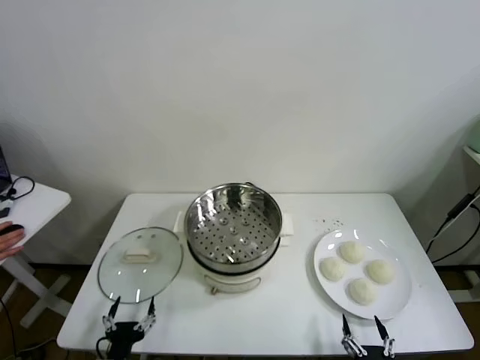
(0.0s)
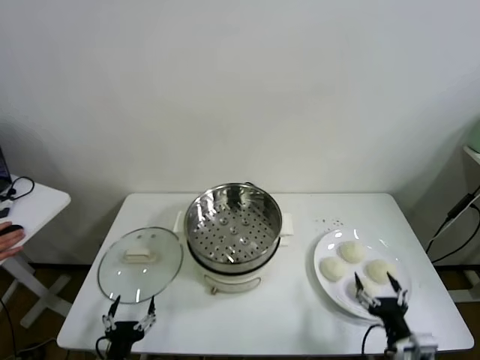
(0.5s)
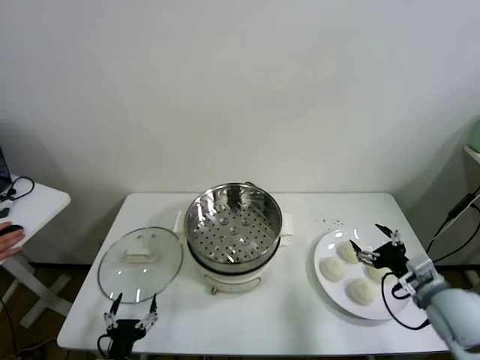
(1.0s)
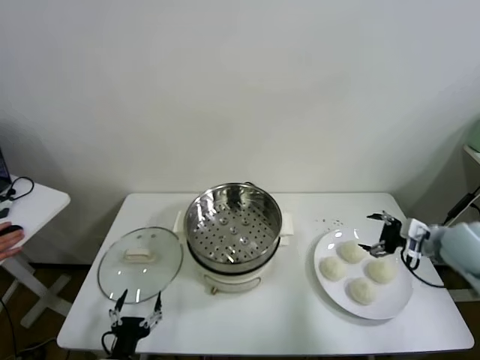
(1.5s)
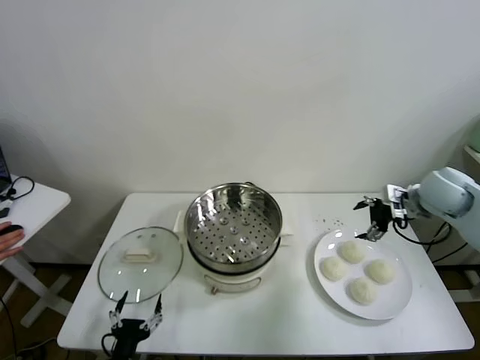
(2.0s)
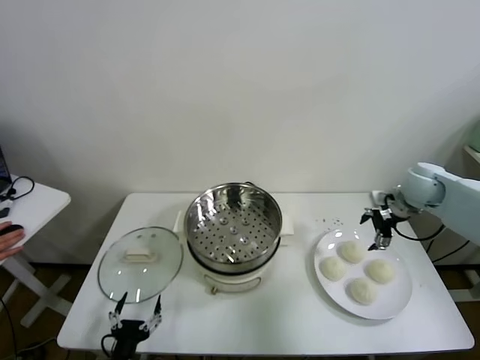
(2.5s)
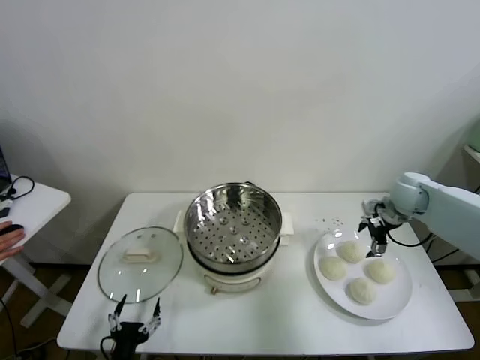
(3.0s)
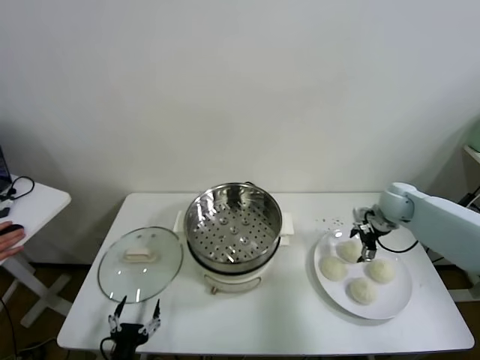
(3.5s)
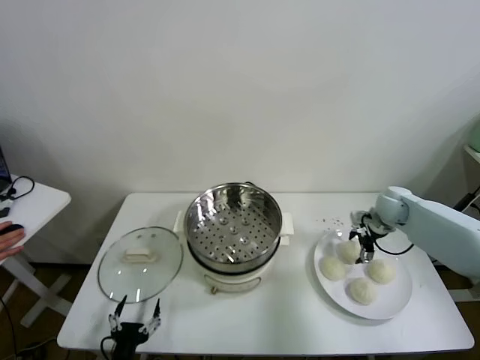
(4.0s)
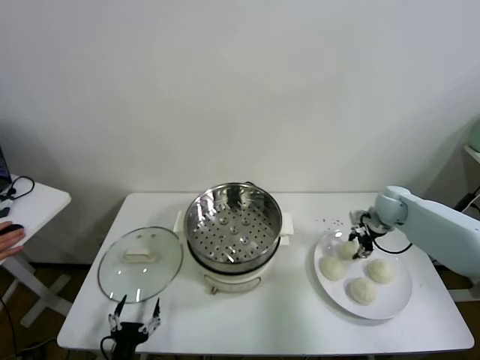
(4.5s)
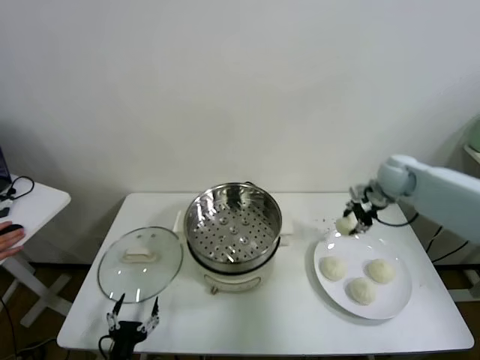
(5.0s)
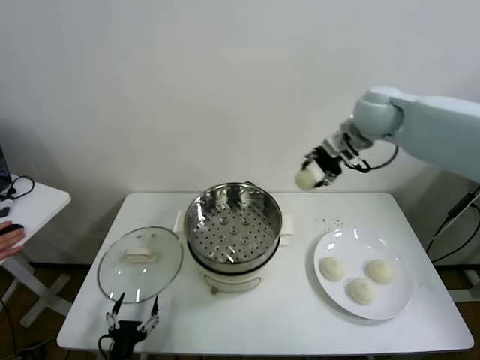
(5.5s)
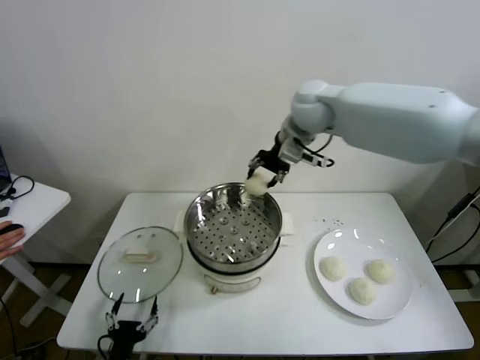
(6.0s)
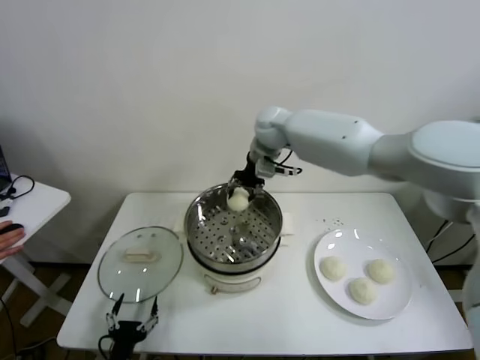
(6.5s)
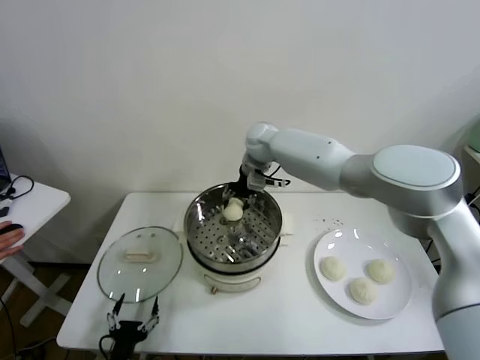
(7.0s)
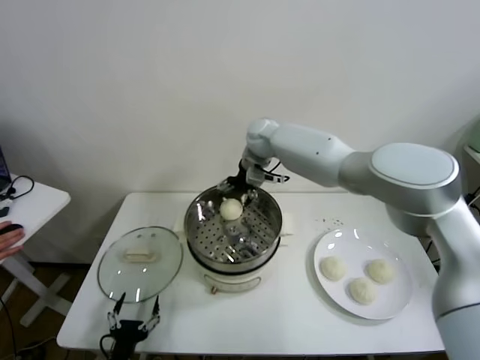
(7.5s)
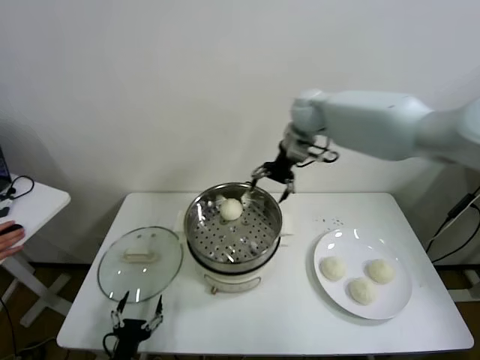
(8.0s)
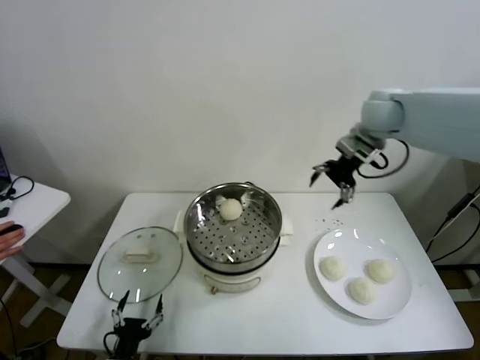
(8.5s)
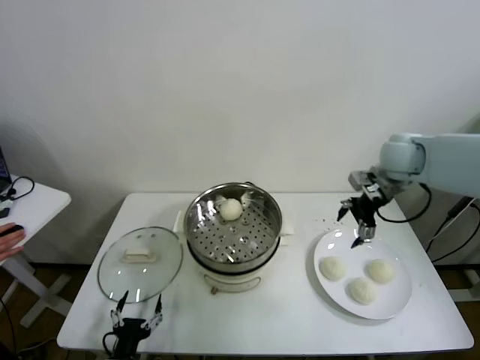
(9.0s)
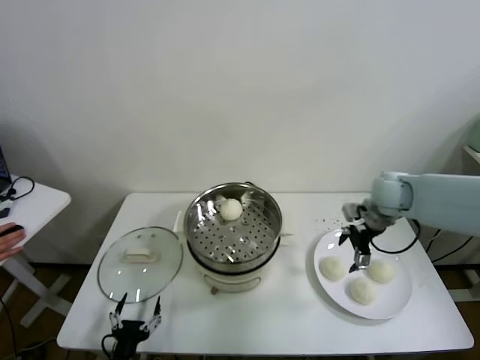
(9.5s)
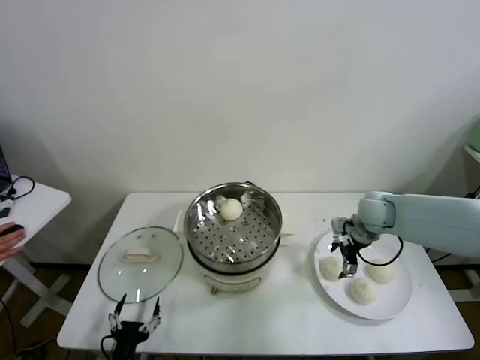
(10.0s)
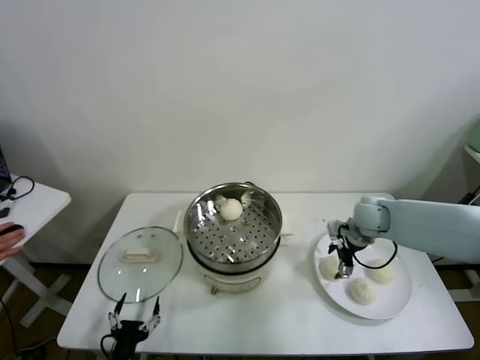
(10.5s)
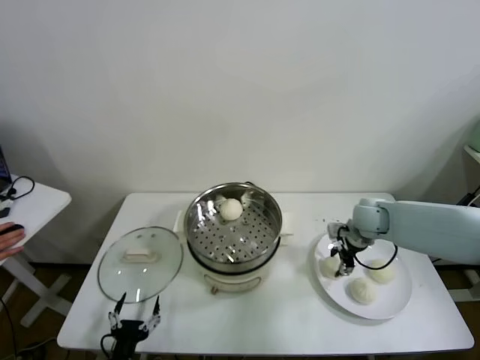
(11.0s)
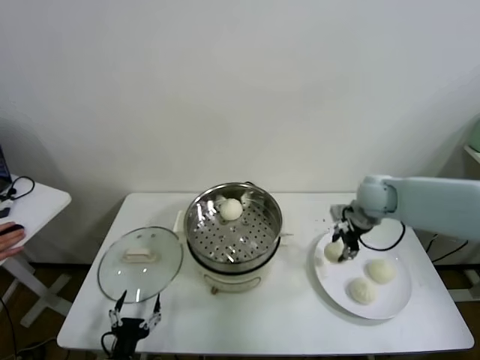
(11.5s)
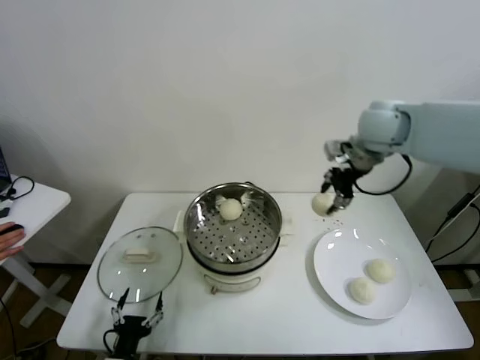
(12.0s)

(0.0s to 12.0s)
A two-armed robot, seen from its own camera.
Task of the whole recording: take steamed baozi put them in steamer.
Step, 0.0s - 4.0s: Grasp the baozi in the plate with right gripper.
Step, 4.5s - 7.0s: Place the baozi on the steamer with right gripper.
Step, 7.5s - 10.5s: Grasp the baozi in the plate with right gripper.
2.0s - 4.0s: The right gripper moves downward and forward, approximately 15 cm.
4.0s - 6.0s: The right gripper heads to the left and upward, covering some 35 cm, and closes its fingers.
6.0s - 8.0s: The right gripper goes roughly 5 cm to the right, and opens.
8.0s - 10.0s: The right gripper moves downward, to the right and backward, some 30 cm.
10.0s - 12.0s: The right gripper is displaced upward by some 25 cm, and closes up.

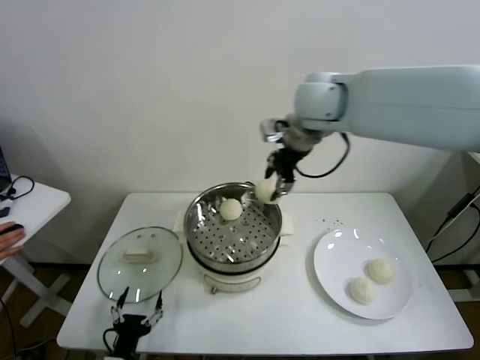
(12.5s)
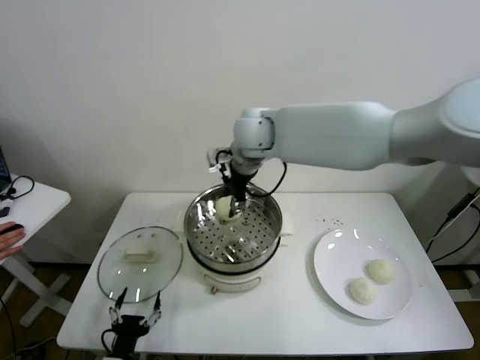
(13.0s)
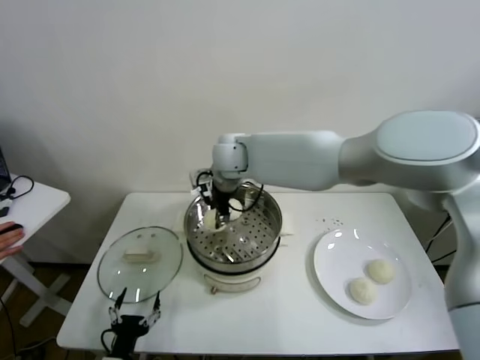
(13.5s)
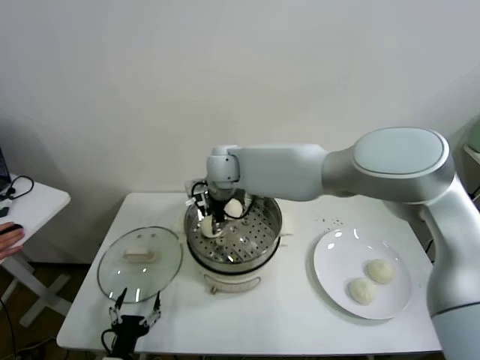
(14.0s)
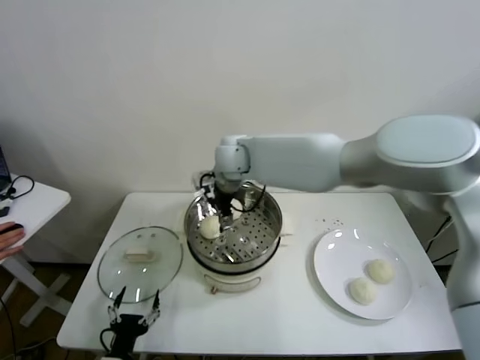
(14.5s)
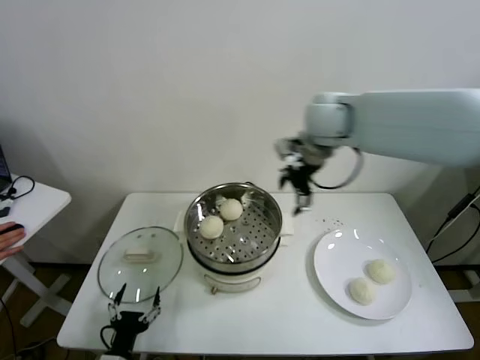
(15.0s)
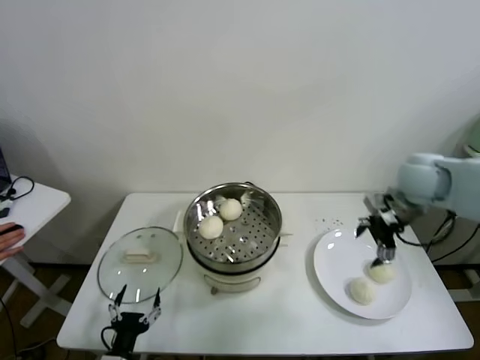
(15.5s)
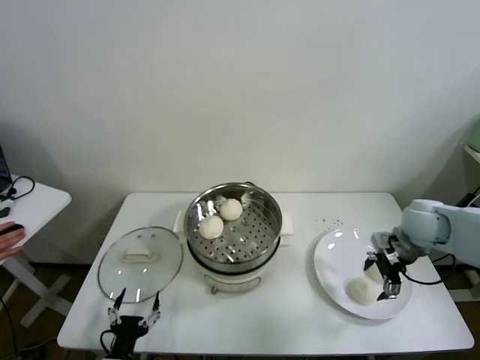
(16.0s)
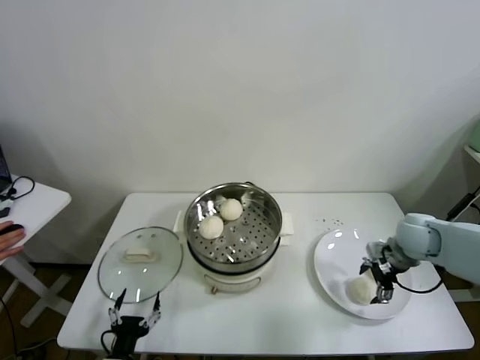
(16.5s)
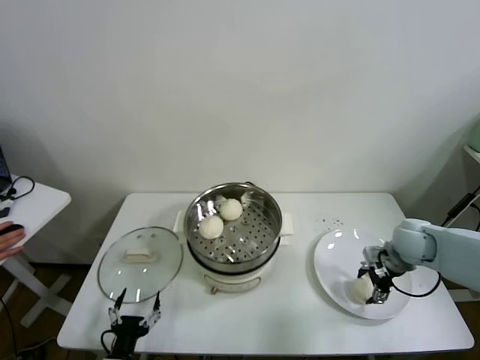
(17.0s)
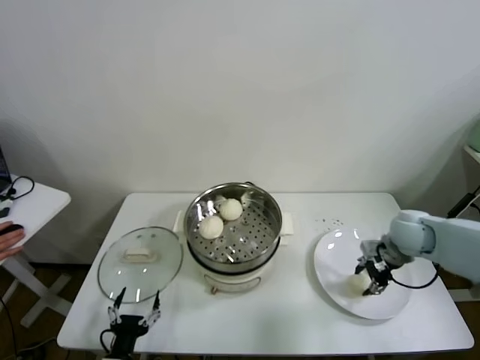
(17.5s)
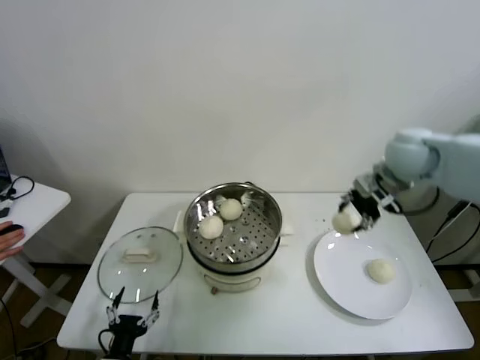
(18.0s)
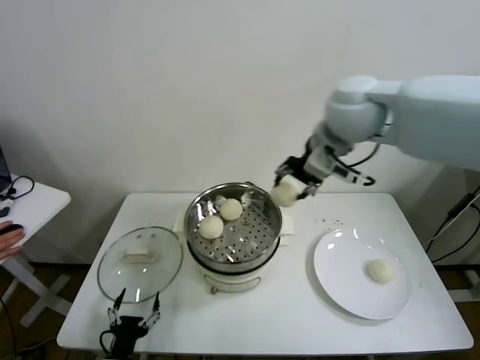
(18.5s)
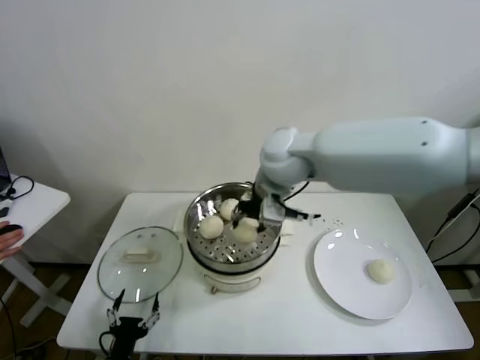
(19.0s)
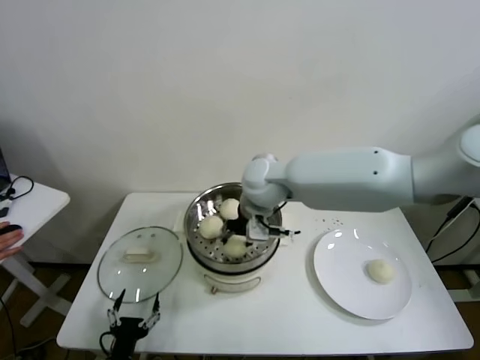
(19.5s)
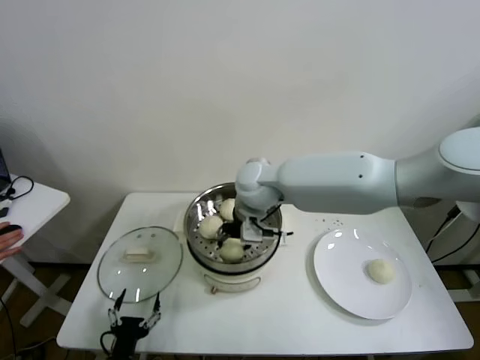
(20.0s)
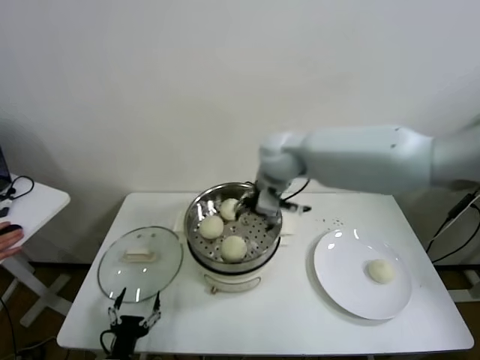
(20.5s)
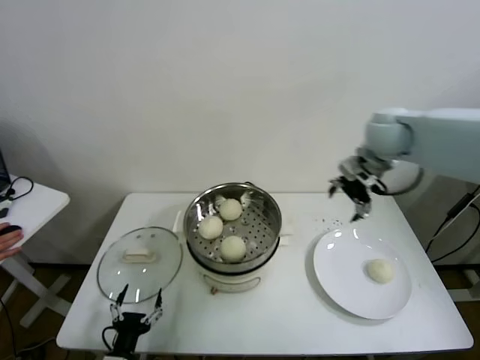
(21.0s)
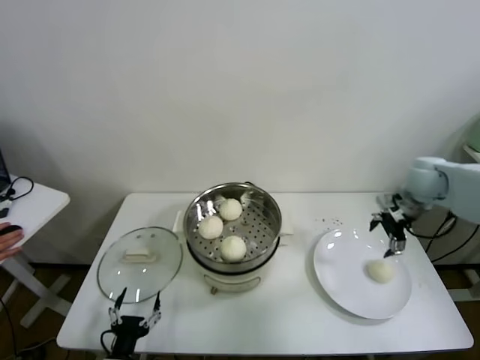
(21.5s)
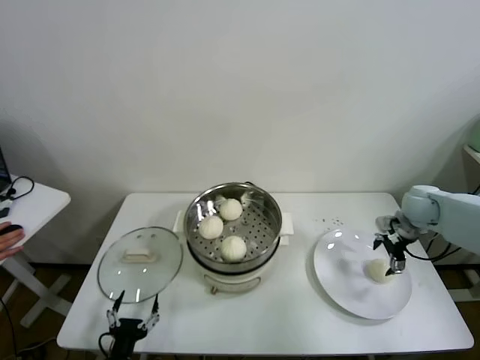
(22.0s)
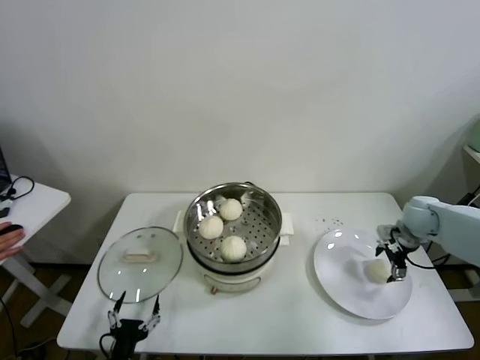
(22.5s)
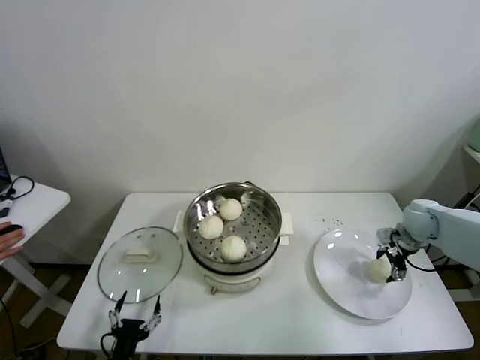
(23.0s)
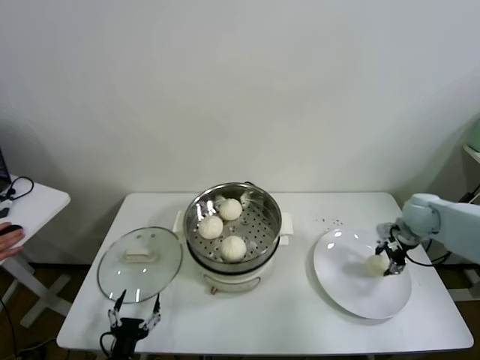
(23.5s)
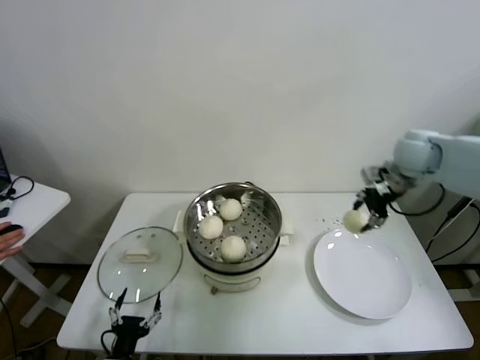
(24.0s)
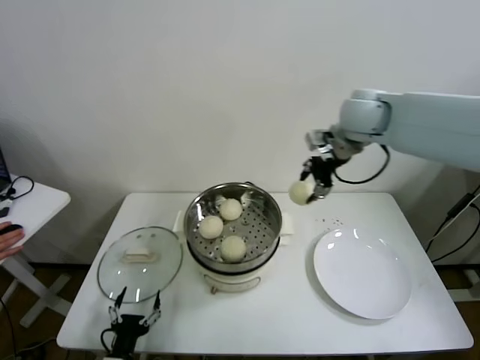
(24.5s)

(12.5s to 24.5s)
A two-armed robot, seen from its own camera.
Task of the whole recording: take steamed baozi put them in steamer.
Step, 14.5s - 17.0s: Grasp the baozi in the plate with right gripper.
Step, 17.5s - 20.0s: Place the baozi on the steamer with right gripper.
Step, 20.5s - 23.0s: Grasp the baozi in the plate with right gripper.
12.5s - 14.5s: The right gripper shifts some 15 cm to the left and downward, and opens its fingers.
14.5s - 16.5s: The right gripper goes some 40 cm to the right and downward.
16.5s - 18.5s: The right gripper moves upward and to the left, about 40 cm, and closes its fingers.
18.5s - 20.5s: The right gripper shifts roughly 10 cm downward and to the left, and opens its fingers.
20.5s - 22.5s: The right gripper is displaced to the right and downward by roughly 40 cm.
22.5s - 24.5s: The right gripper is displaced upward and to the left by about 35 cm, and closes up.

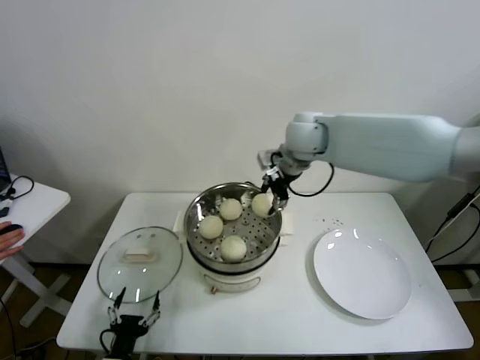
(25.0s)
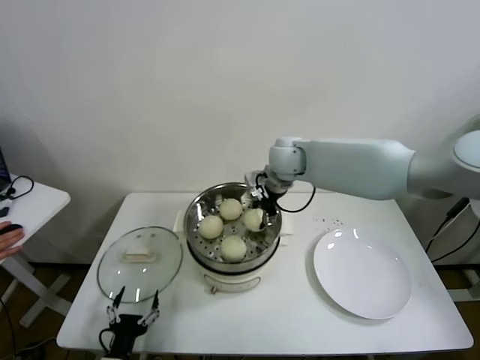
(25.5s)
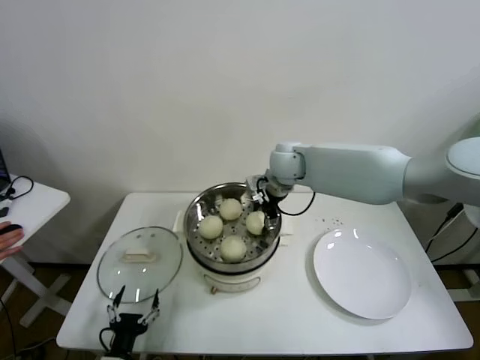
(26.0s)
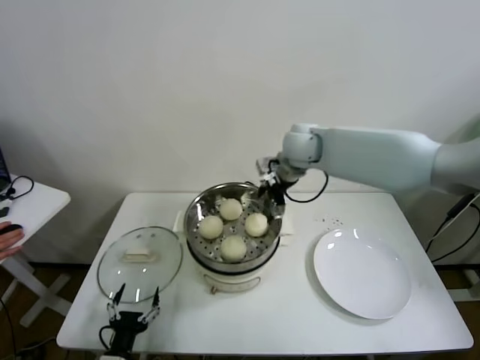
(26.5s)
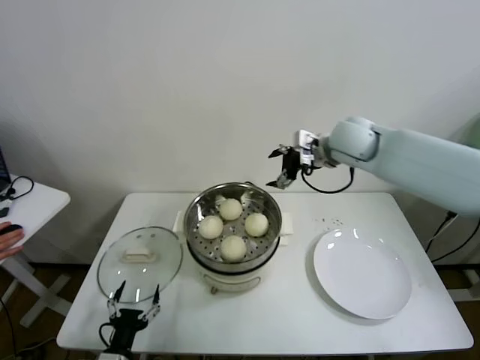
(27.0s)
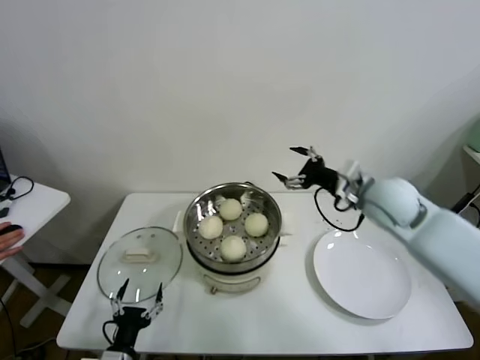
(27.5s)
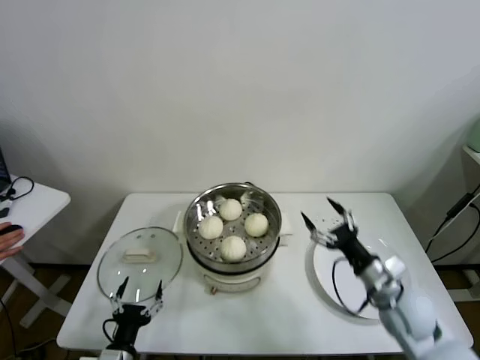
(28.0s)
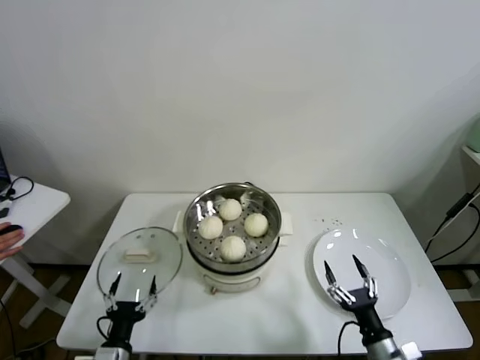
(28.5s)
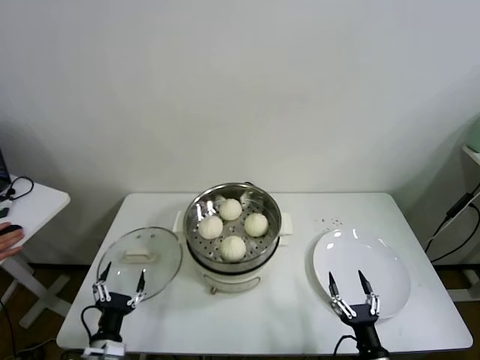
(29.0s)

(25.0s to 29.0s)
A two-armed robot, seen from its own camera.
Task of the whole recording: take steamed baozi put them in steamer.
25.0s - 27.0s: The right gripper heads to the right, covering approximately 10 cm, and opens up.
27.0s - 29.0s: The right gripper travels backward and downward by some 50 cm.
